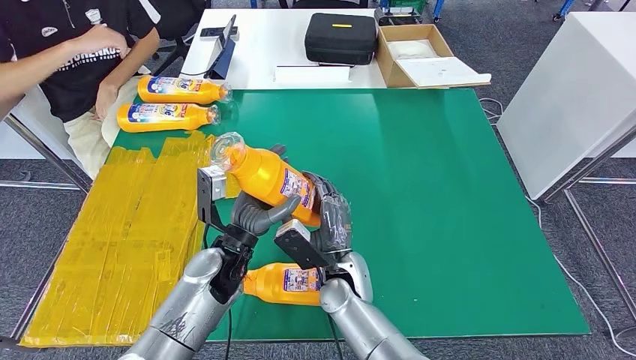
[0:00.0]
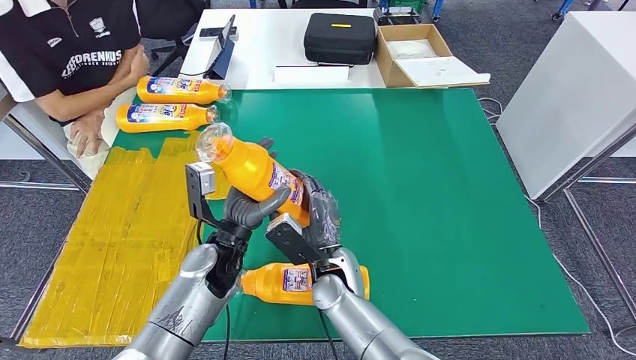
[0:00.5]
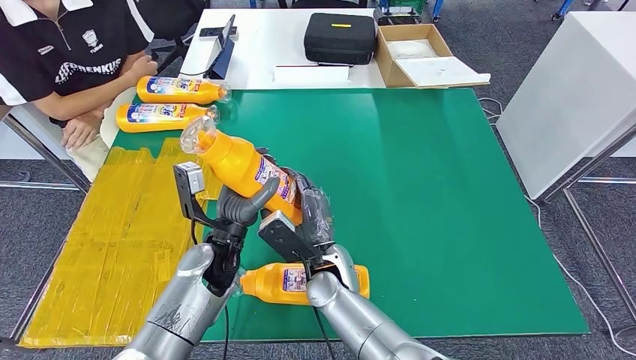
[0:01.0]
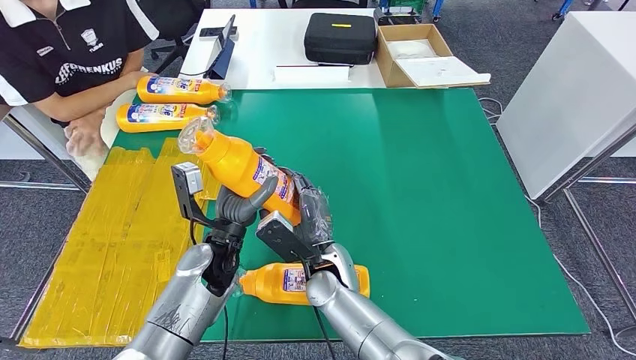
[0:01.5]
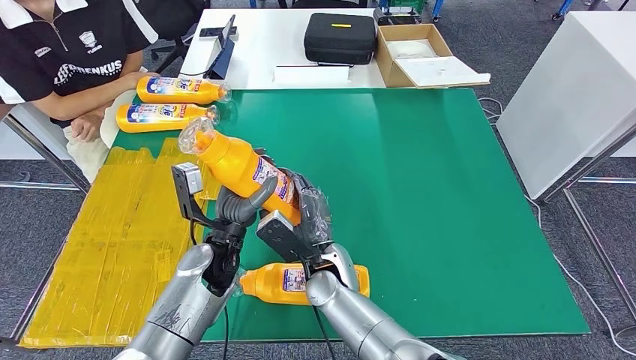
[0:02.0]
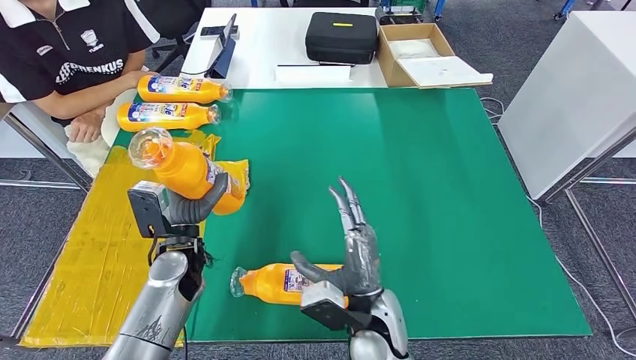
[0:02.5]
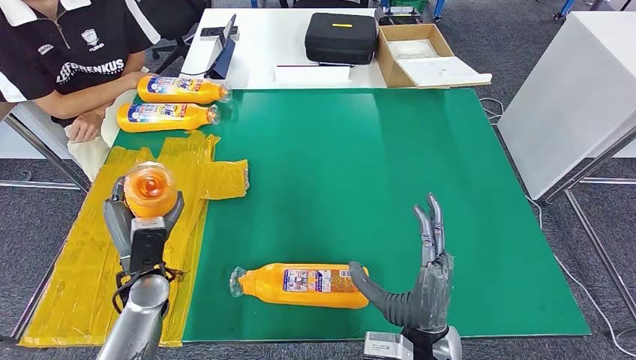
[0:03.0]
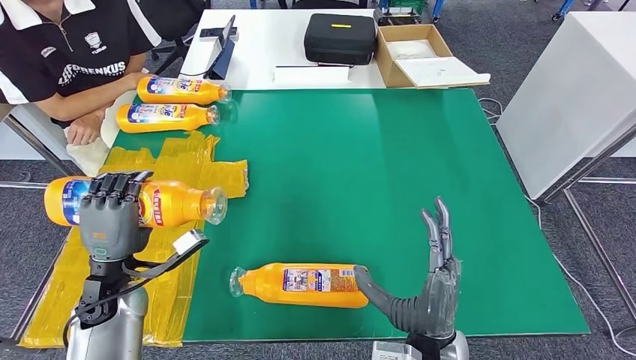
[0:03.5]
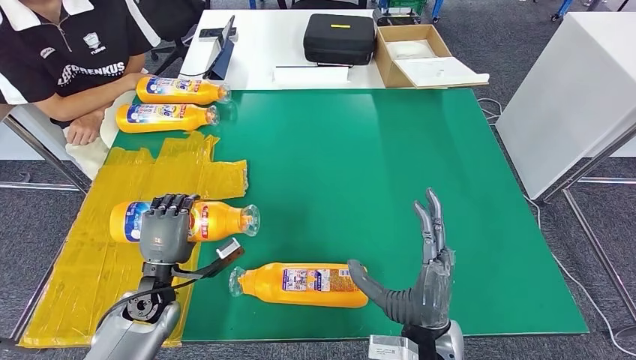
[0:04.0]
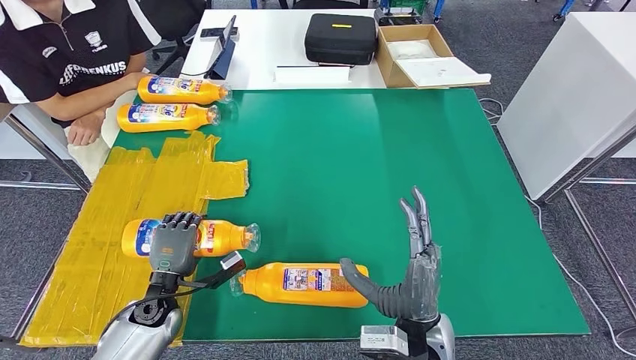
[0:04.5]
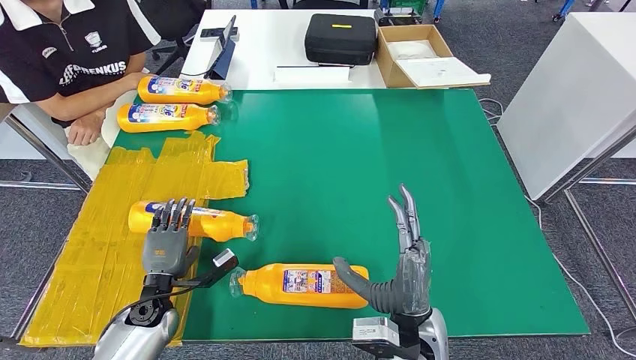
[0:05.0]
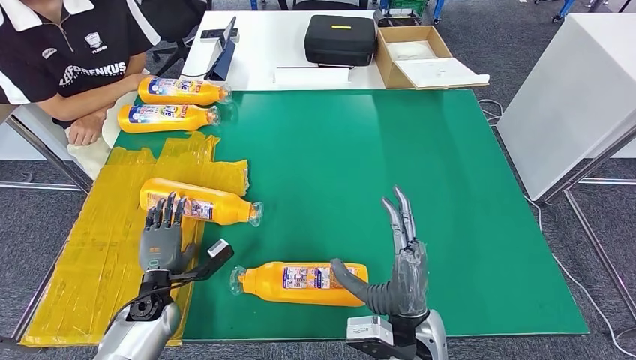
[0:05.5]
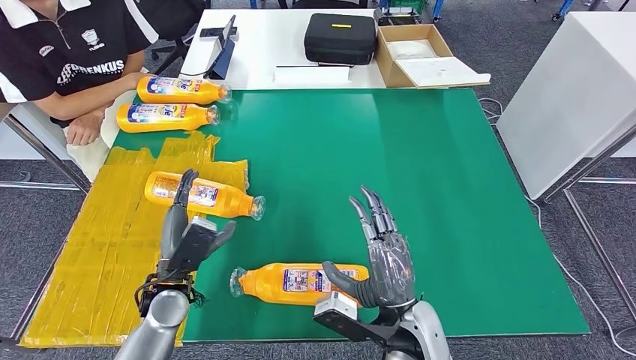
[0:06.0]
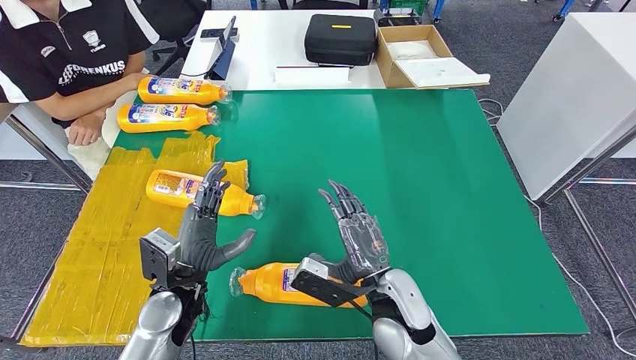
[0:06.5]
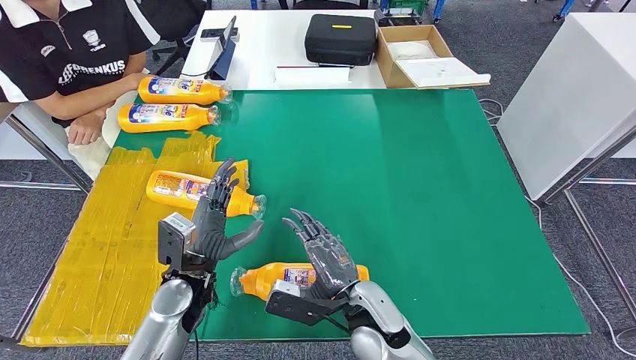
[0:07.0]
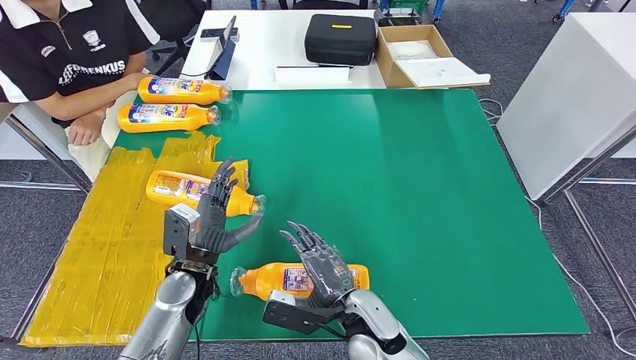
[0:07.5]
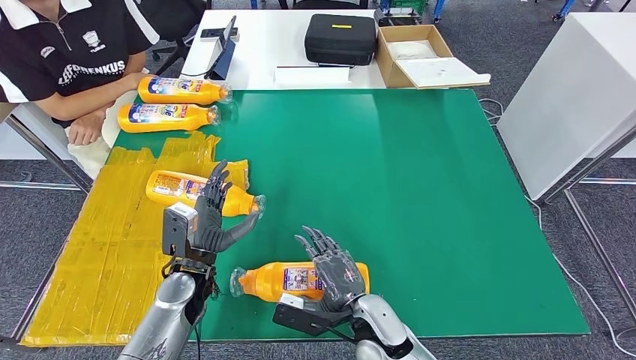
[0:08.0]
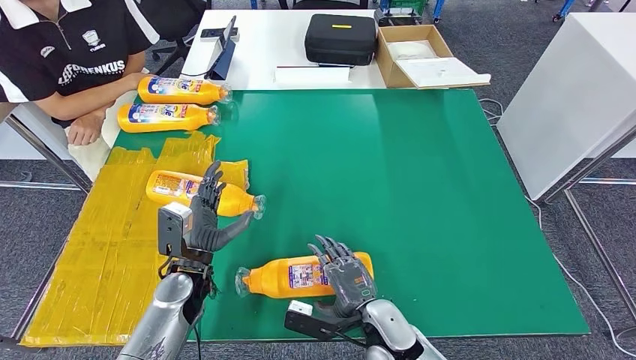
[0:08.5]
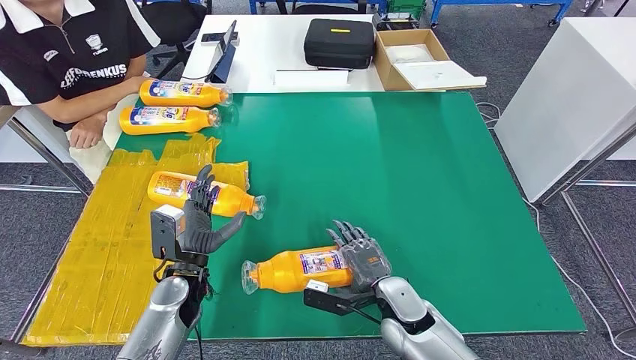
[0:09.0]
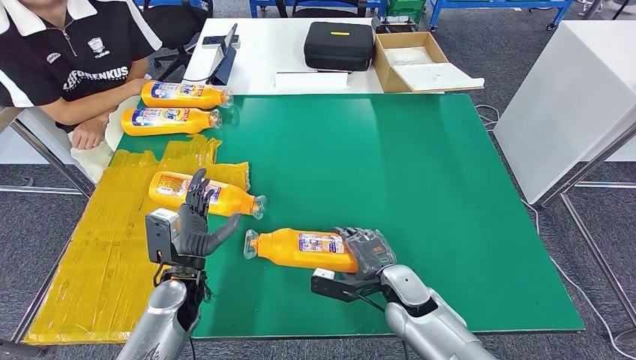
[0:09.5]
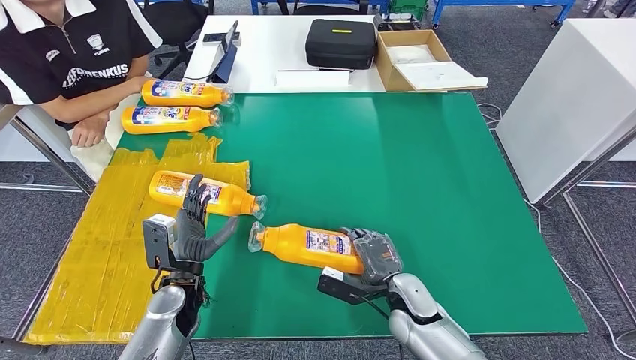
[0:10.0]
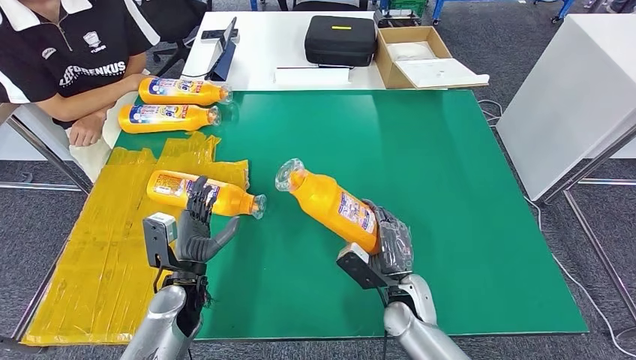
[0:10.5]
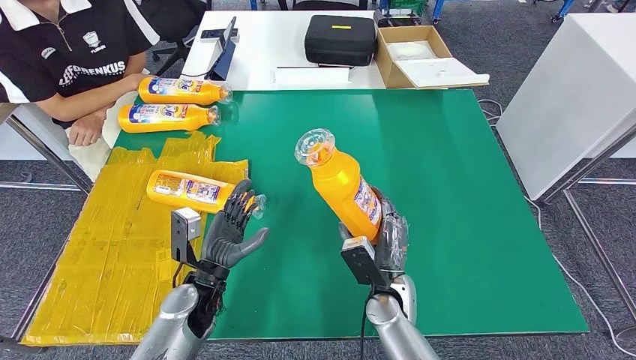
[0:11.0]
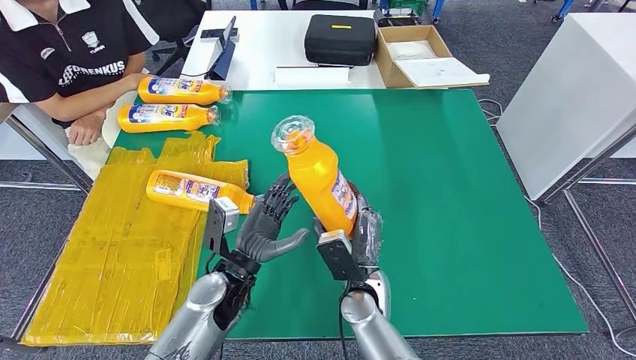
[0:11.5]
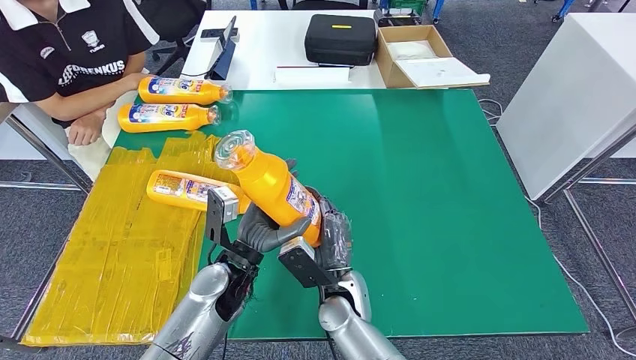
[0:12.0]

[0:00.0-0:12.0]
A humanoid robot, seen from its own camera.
Step, 0:00.0 to 0:05.0: Flip the fast-moving consumer goods bottle to the front side.
Step, 0:09.0 to 0:11.5: Pick up the fast-moving consumer goods bottle from the table.
0:00.0 to 0:02.0: The hands stay close to where they were, moving slightly.
0:02.0 to 0:04.0: The right hand is displaced to the right and backward by roughly 15 cm, while the left hand heads to the left, downward and backward, covering approximately 15 cm.
0:06.0 to 0:08.0: The right hand shifts some 5 cm downward.

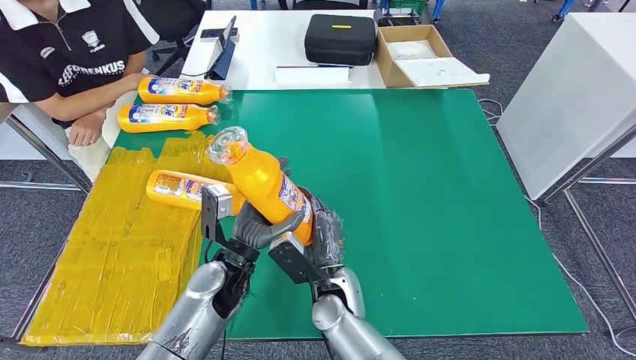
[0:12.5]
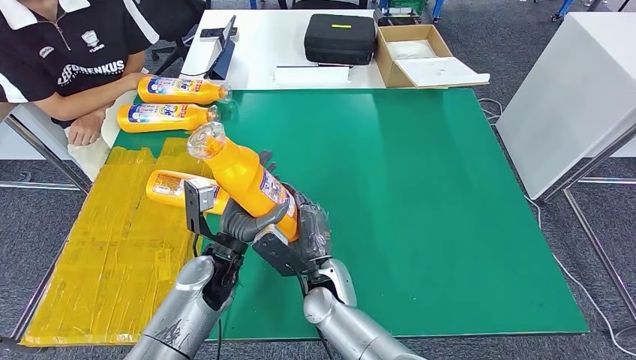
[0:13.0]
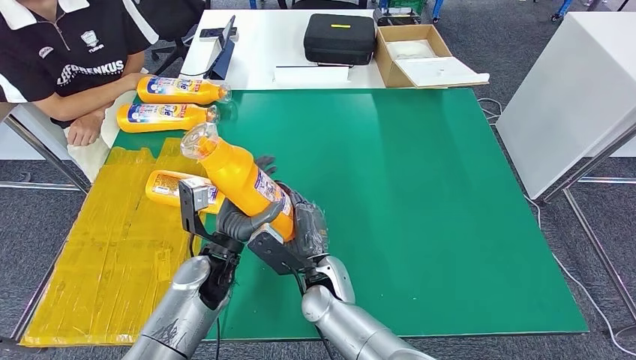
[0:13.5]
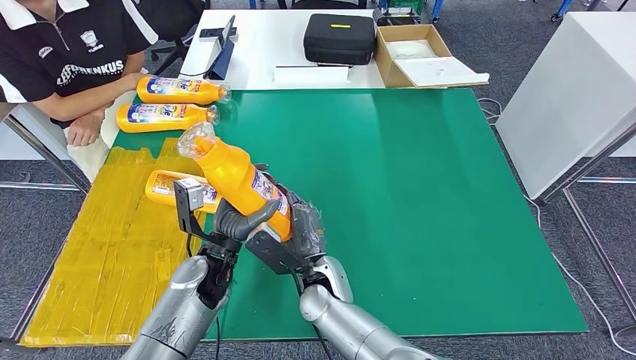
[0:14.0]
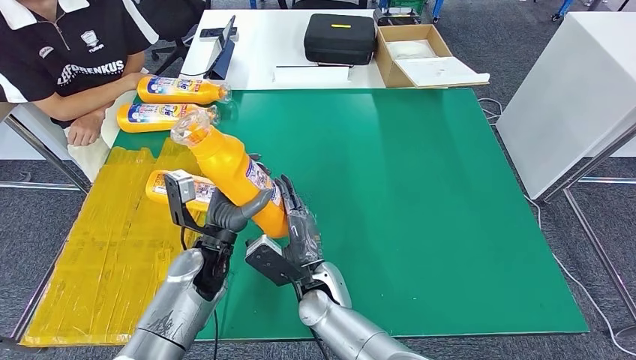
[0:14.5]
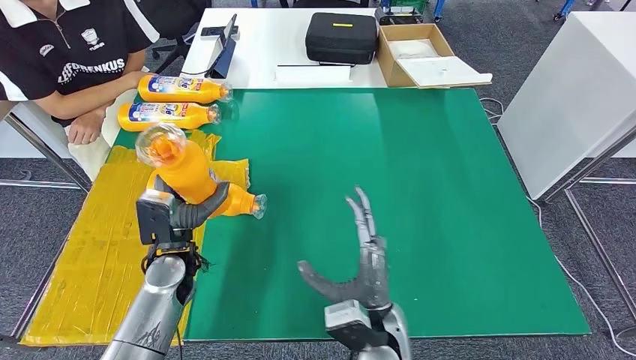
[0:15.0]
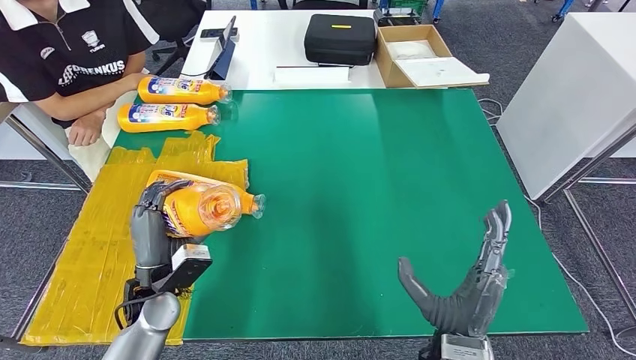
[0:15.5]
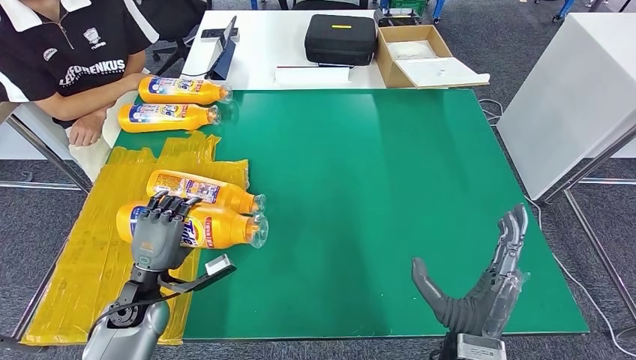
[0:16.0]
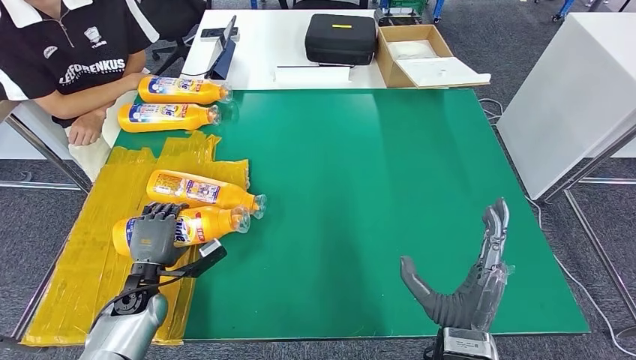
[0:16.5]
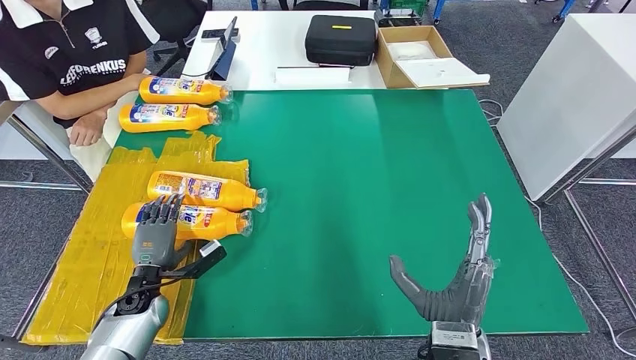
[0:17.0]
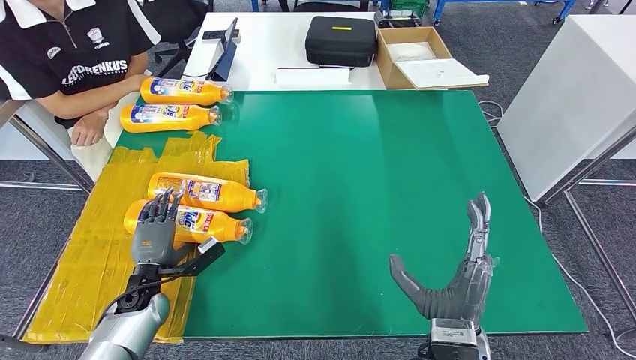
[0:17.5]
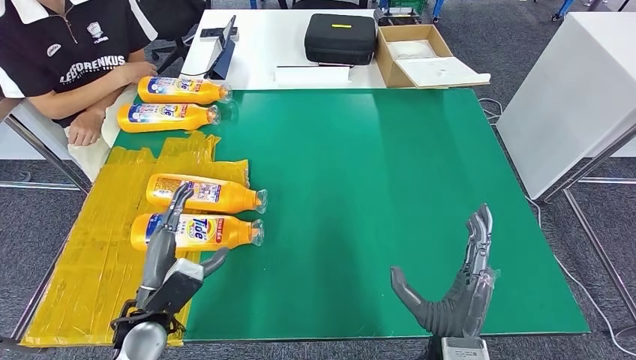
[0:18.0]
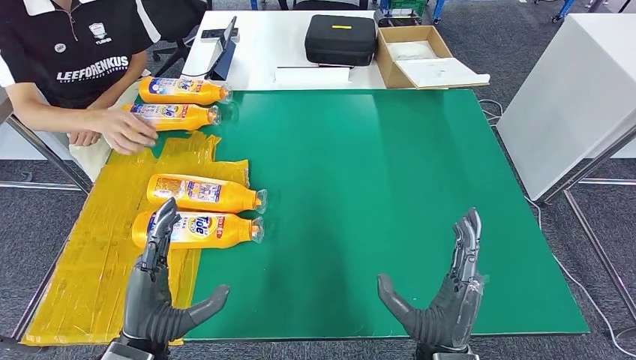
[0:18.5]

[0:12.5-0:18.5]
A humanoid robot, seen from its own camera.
Step, 0:12.5 to 0:18.5: Flip the fast-moving consumer goods bottle to the front side.
0:12.5 to 0:14.5: There are only small adjustments of the hands.
0:14.5 to 0:16.5: The right hand moves to the right and backward, some 20 cm. The left hand moves to the left and downward, roughly 20 cm.
0:16.5 to 0:18.5: The left hand heads backward, upward and to the right, covering some 20 cm.
